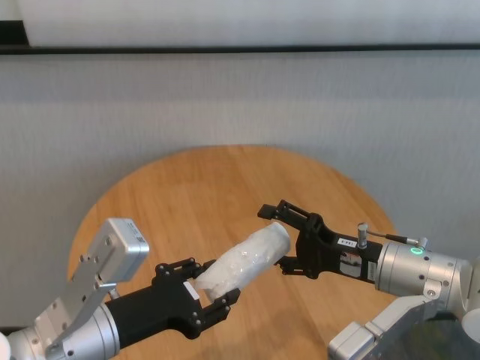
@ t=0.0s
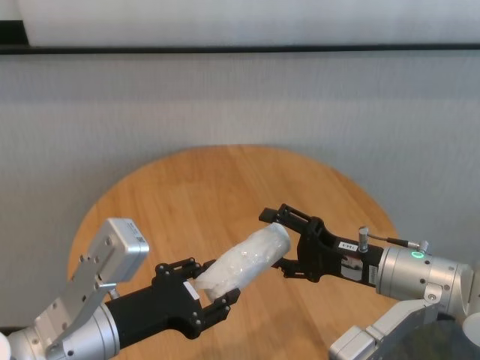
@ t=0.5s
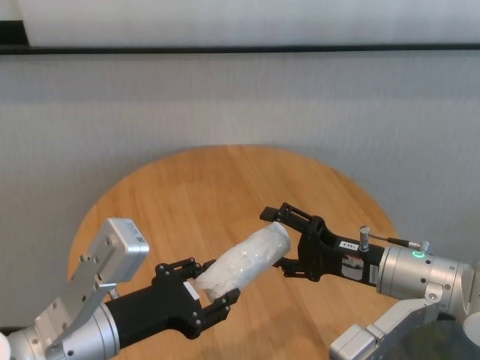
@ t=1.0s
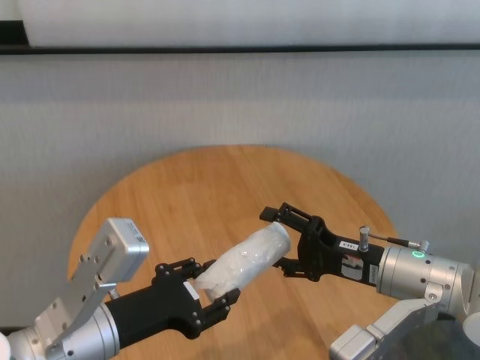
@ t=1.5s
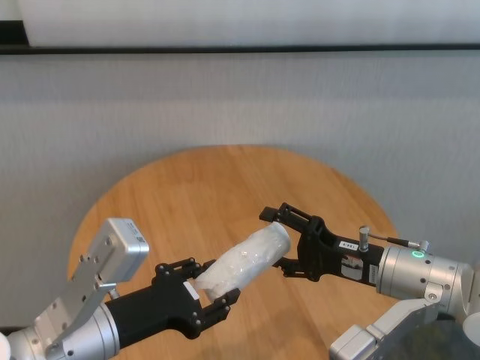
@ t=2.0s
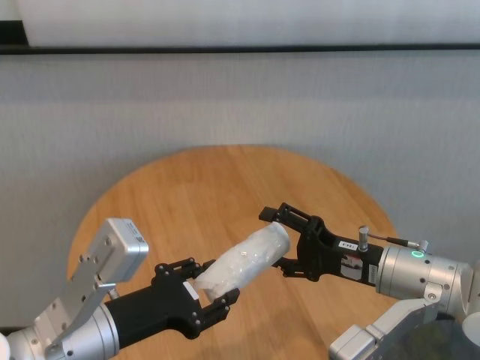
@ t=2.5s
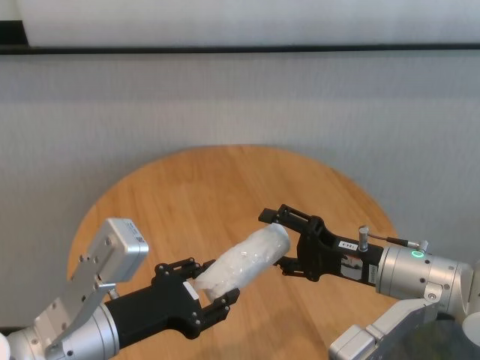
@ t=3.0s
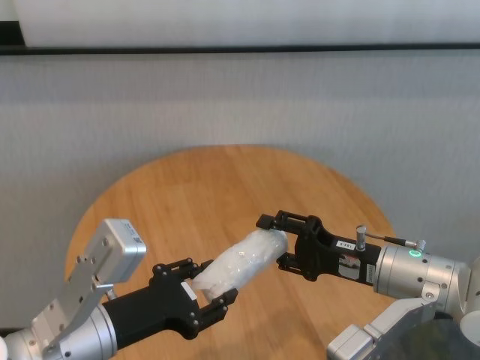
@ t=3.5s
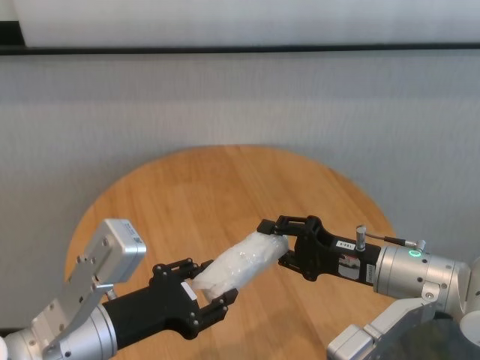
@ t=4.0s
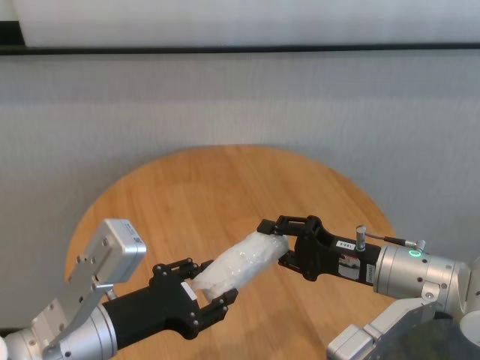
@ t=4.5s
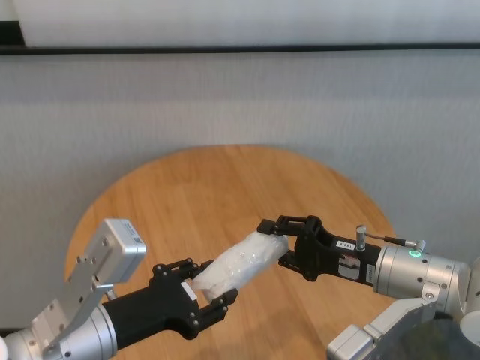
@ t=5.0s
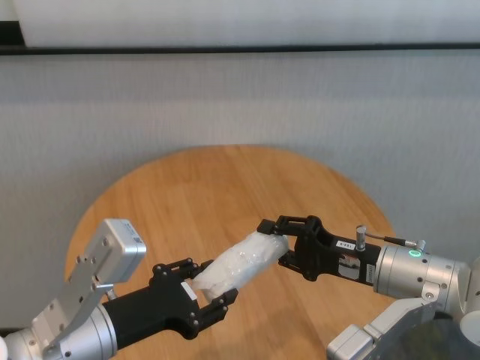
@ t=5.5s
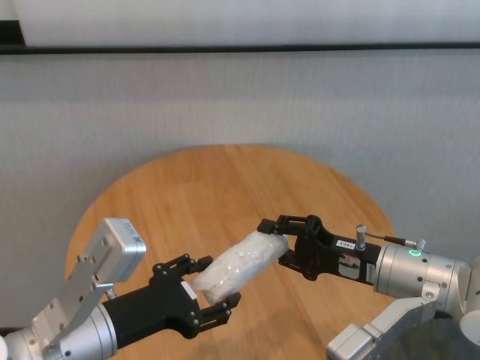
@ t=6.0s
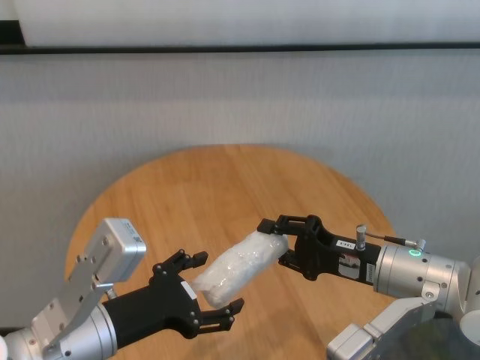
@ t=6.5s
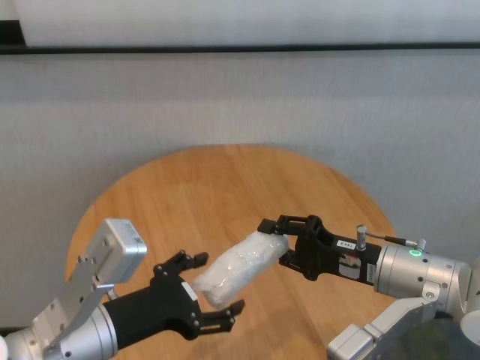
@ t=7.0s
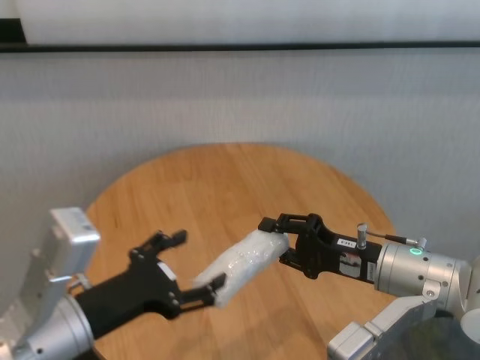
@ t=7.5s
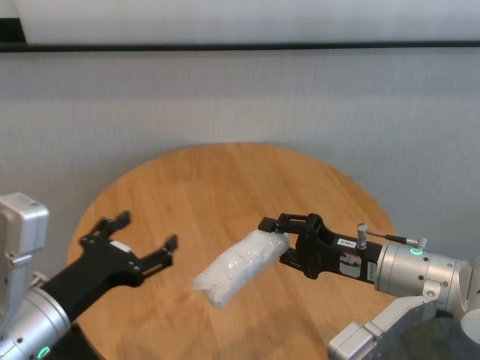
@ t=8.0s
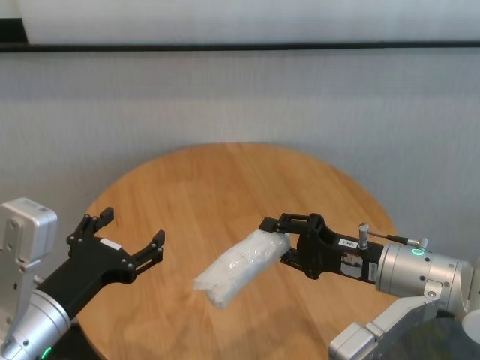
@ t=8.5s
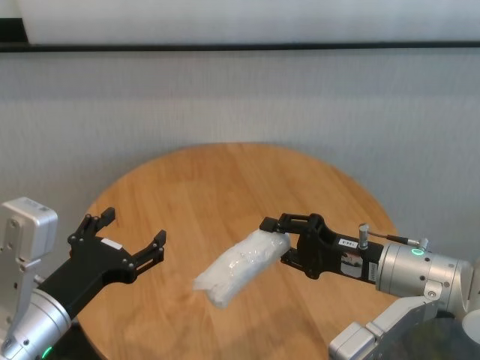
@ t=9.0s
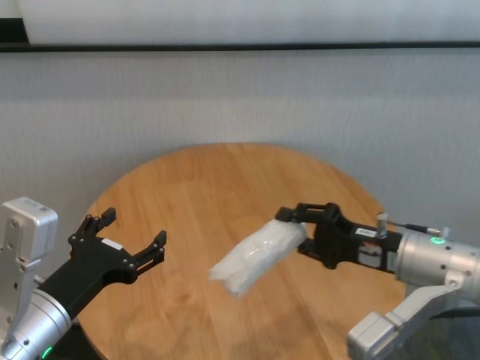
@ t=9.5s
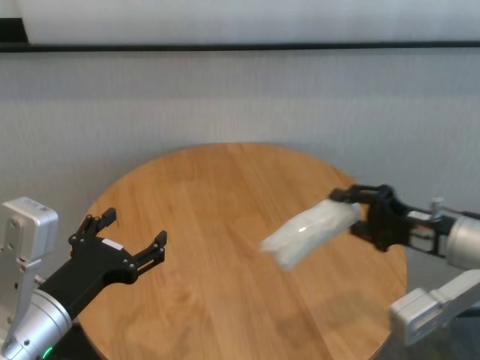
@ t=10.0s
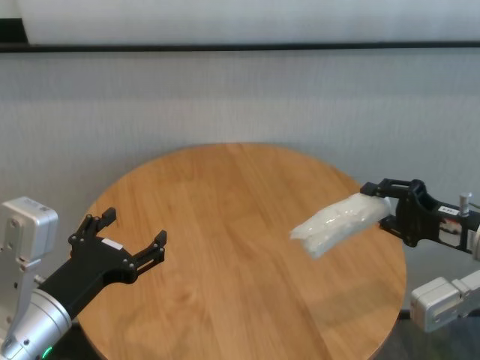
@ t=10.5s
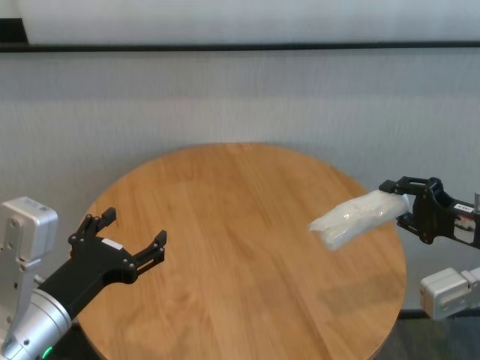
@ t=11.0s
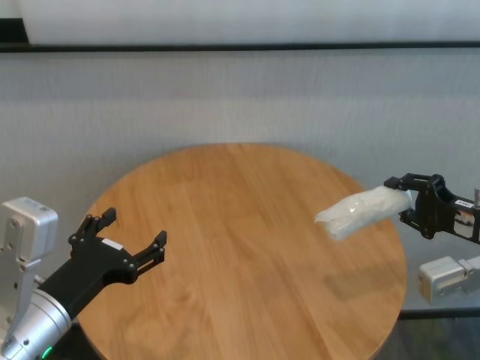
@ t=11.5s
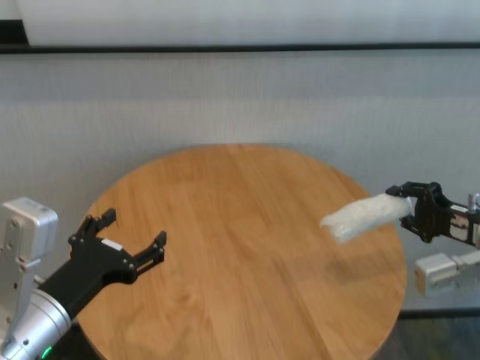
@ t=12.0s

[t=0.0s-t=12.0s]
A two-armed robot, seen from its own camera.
Task of the whole recording: One hand took the sandbag from the other hand and placed it on the table.
Step, t=0.0s to t=7.0s: Pass the paper ball to the right gripper.

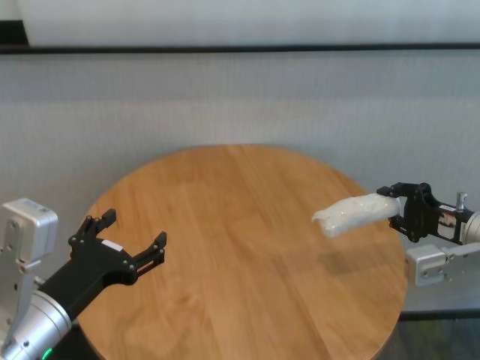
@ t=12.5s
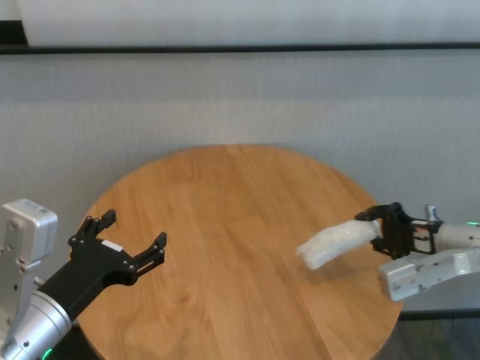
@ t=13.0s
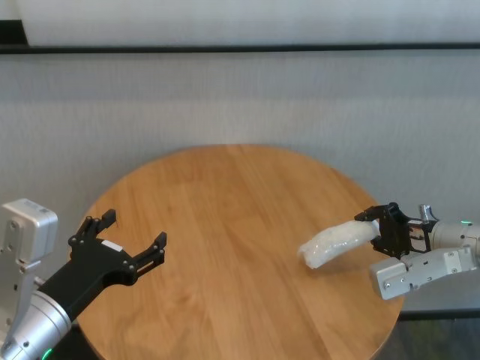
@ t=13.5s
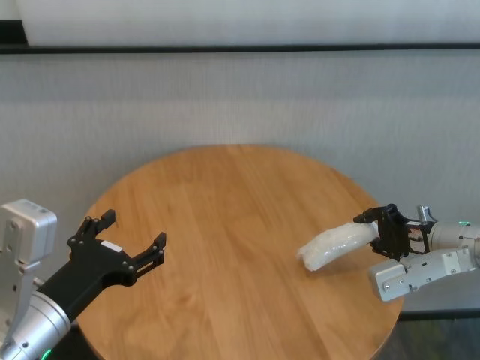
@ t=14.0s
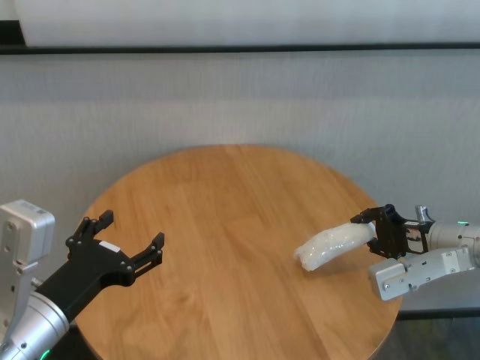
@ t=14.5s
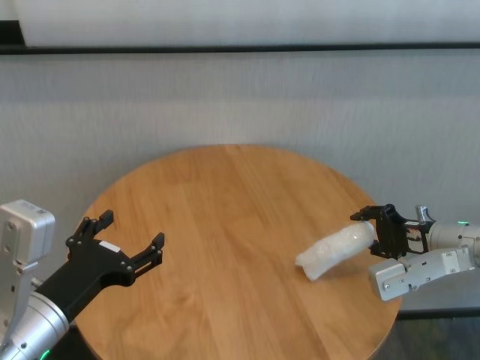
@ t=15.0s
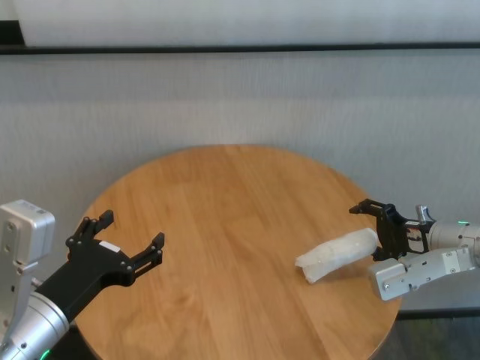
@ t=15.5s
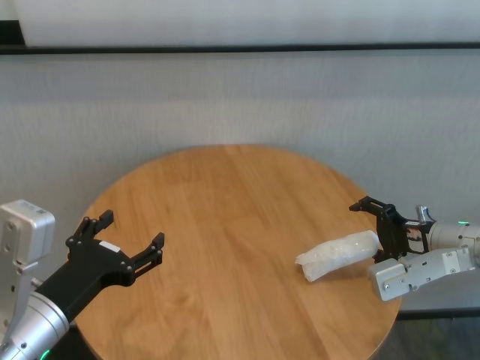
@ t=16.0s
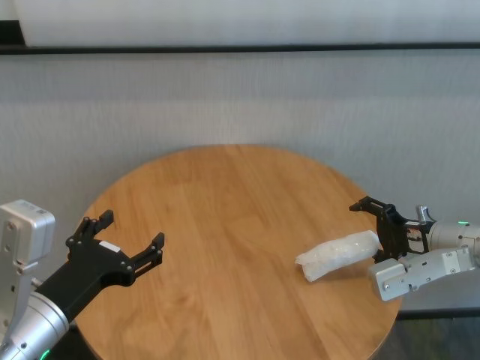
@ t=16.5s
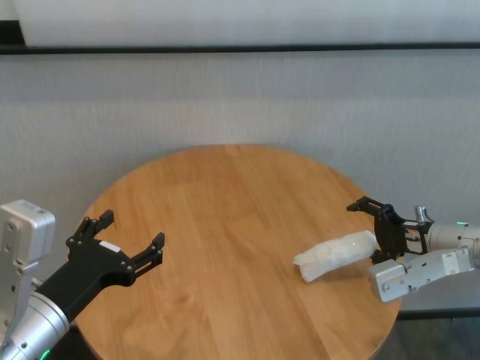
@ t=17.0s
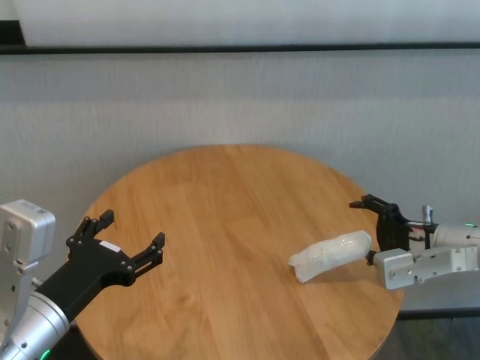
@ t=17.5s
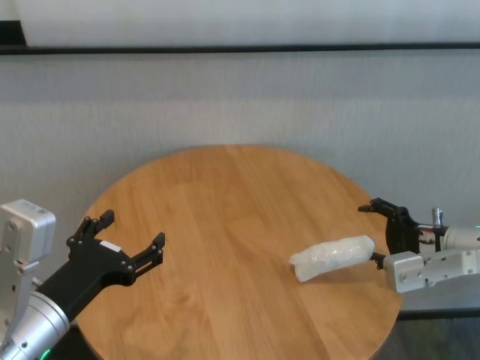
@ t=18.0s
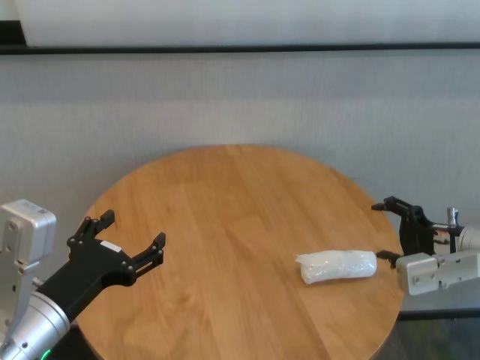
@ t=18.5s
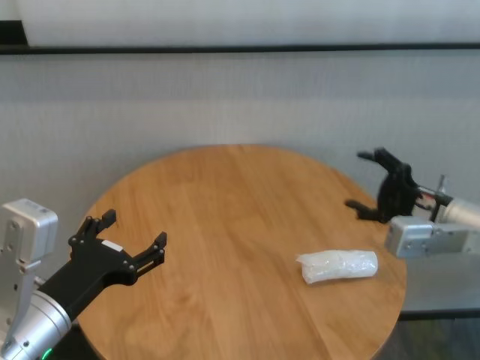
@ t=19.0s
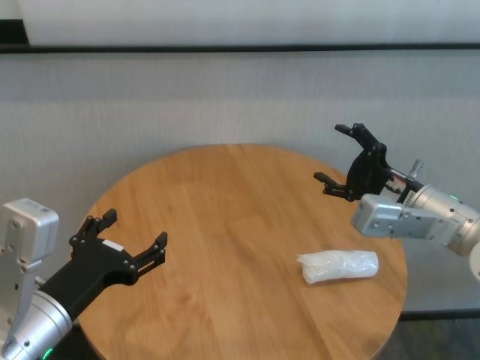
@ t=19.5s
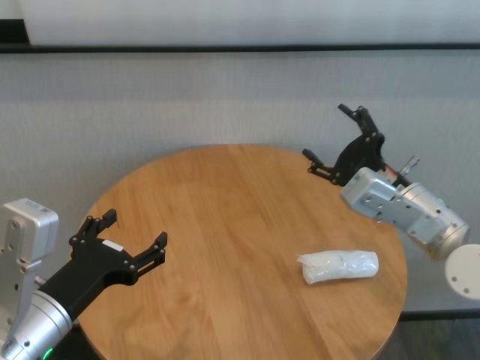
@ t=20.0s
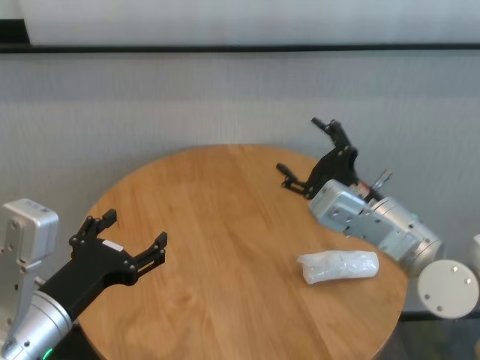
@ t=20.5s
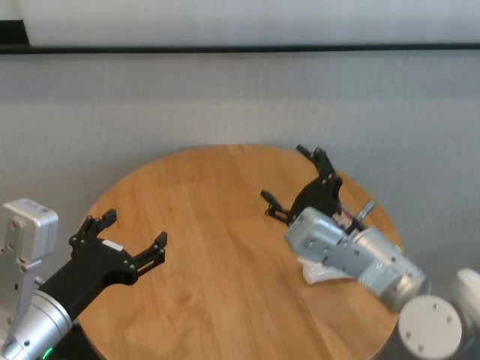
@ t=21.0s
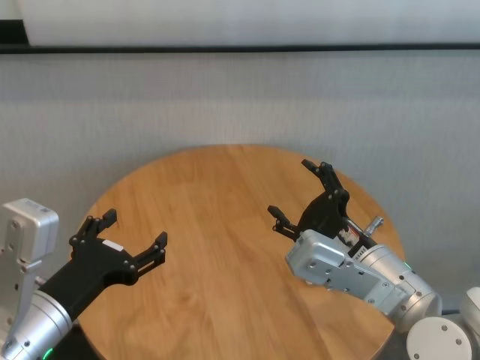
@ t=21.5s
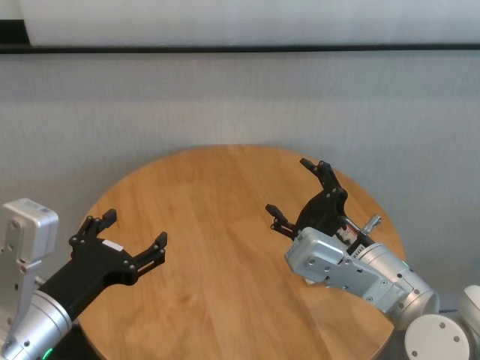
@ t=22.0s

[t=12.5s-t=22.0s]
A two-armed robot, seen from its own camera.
Task of the whole recording: One hand took the sandbag from the other hand and placed it on the table.
Step, t=12.5s to t=18.0s: Place the paper ball on the table with right gripper.
